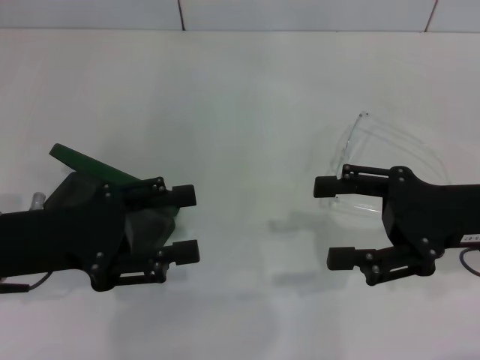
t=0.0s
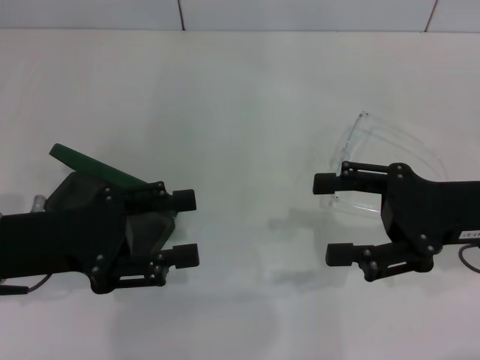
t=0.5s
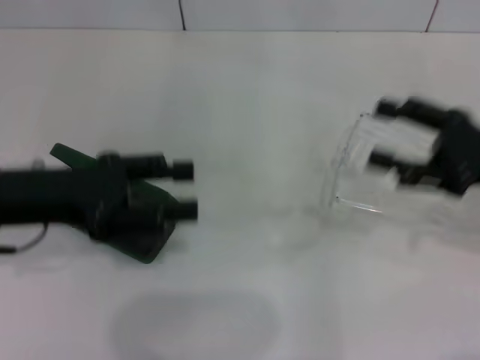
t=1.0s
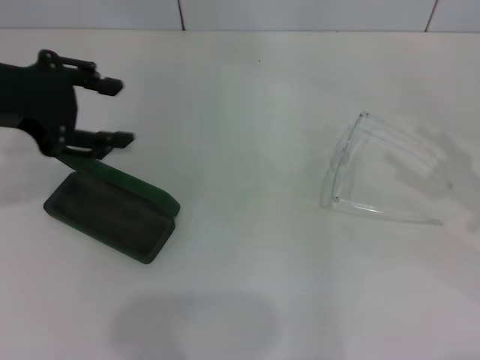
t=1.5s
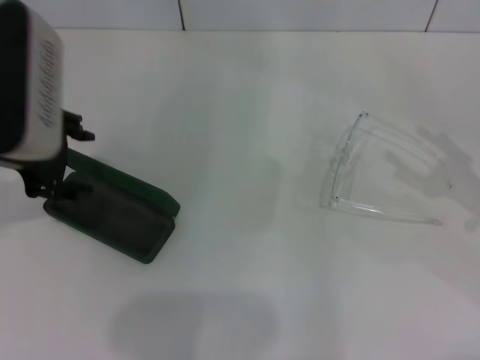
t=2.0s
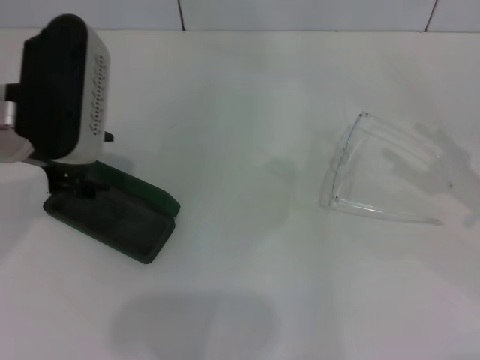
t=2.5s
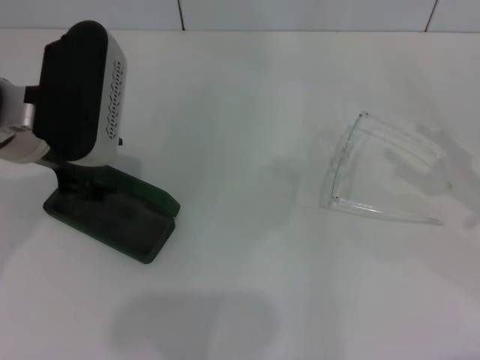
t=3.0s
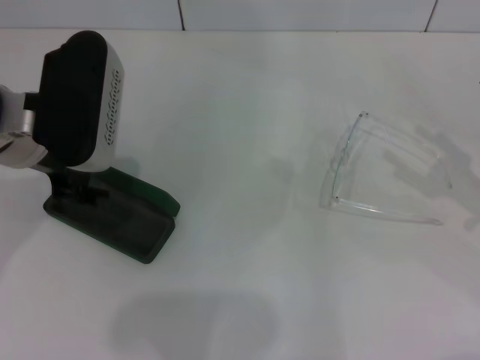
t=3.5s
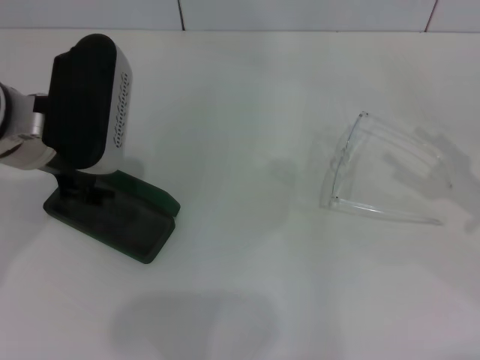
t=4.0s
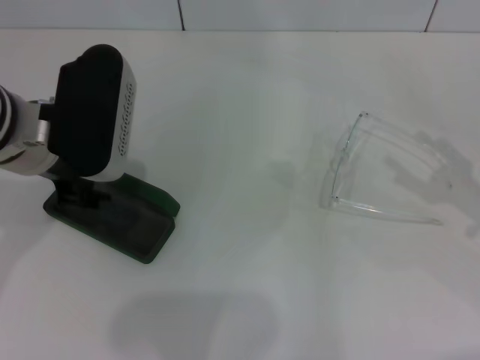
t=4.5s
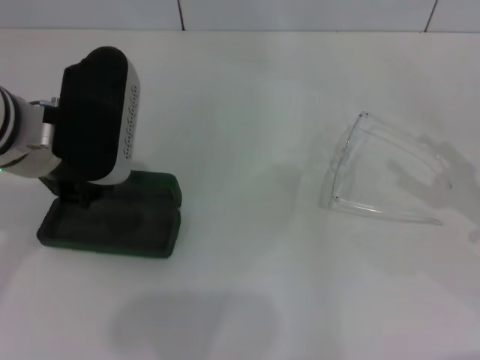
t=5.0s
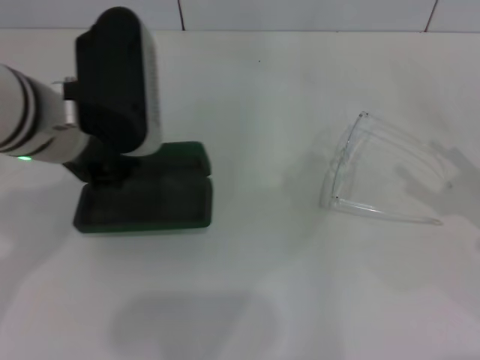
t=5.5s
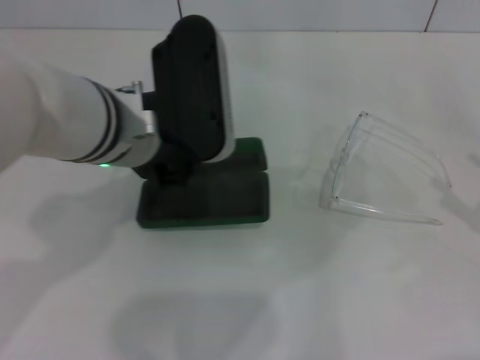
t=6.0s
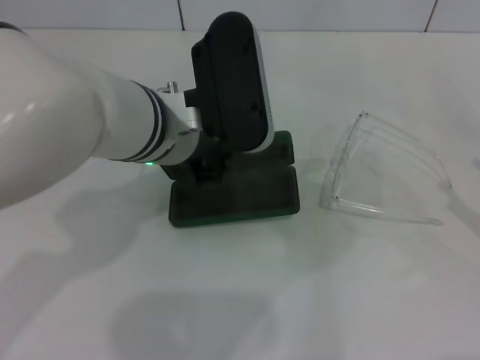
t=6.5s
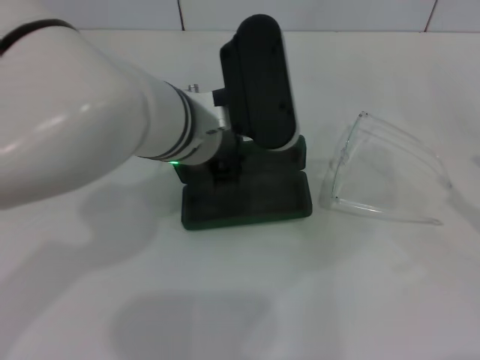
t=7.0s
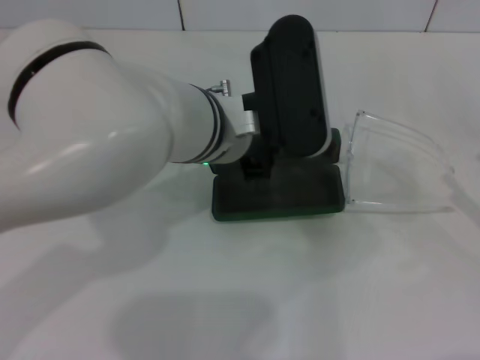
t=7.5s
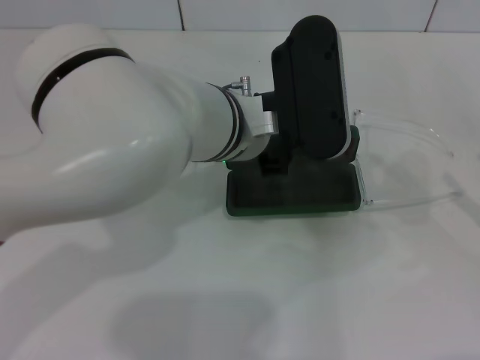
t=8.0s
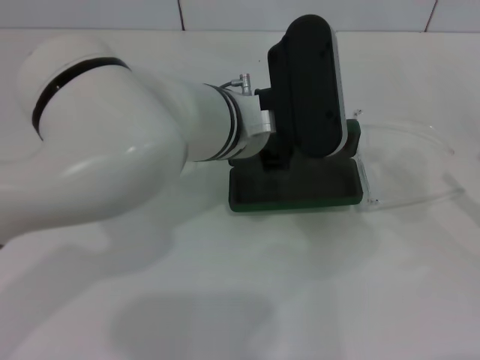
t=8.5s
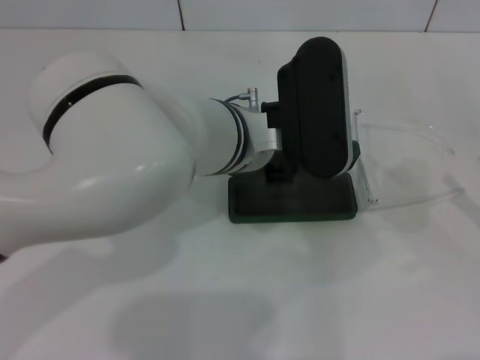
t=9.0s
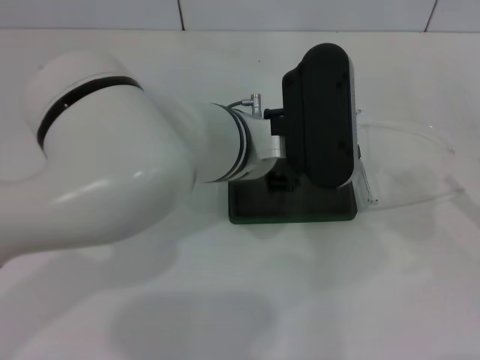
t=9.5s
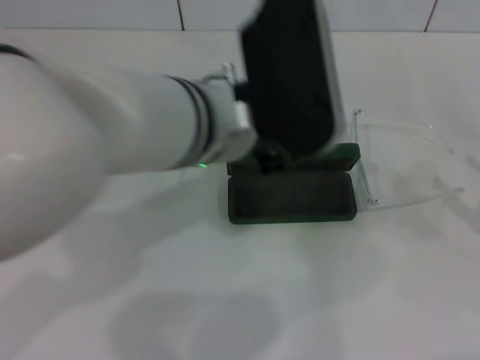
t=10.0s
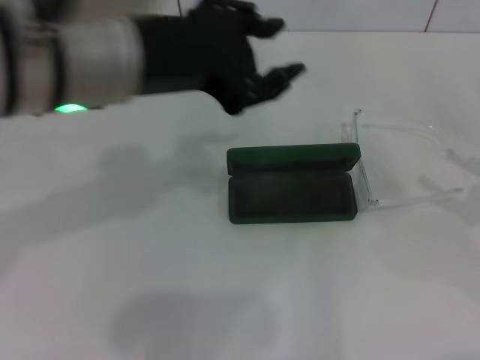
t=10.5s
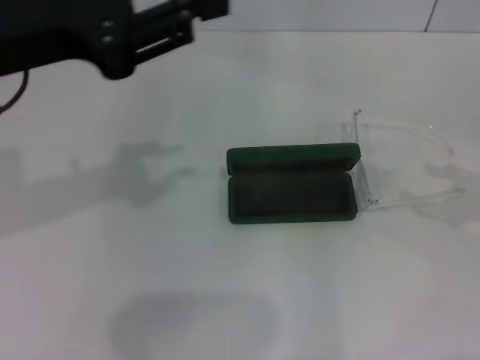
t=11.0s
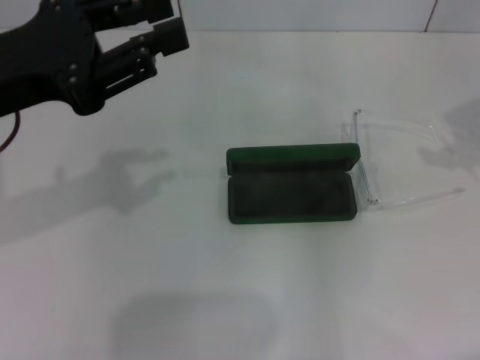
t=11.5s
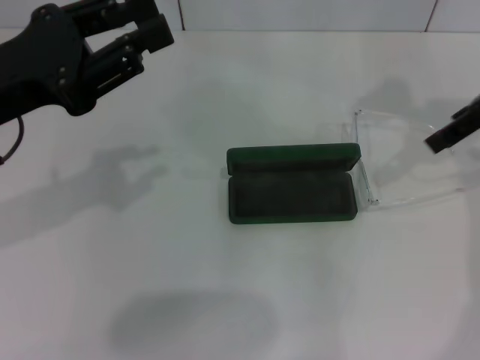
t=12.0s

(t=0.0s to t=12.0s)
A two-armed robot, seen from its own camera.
Step, t=0.0s - t=4.5s: Grab the glasses case with your left hand.
Step, t=5.0s - t=9.0s: Place the glasses case in the center of the table with your left hand.
t=0.0s - t=2.0s: The left gripper heads upward and forward, covering about 10 cm. The right gripper travels to the right by roughly 10 cm.
t=2.0s - t=4.0s: The grippers make only small movements.
t=4.0s - t=6.0s: The right gripper goes some 5 cm backward; the left gripper travels to the right by about 10 cm, and closes its fingers.
t=6.0s - t=8.0s: The left gripper shifts about 10 cm to the right.
t=8.0s - t=10.0s: The left gripper moves some 5 cm, and opens its fingers.
t=10.0s - t=12.0s: The left gripper shifts roughly 20 cm to the left, while the right gripper moves upward, forward and to the left, approximately 30 cm.

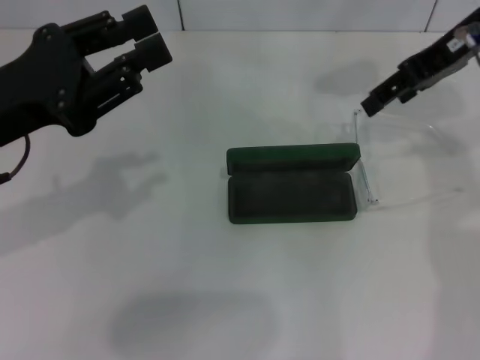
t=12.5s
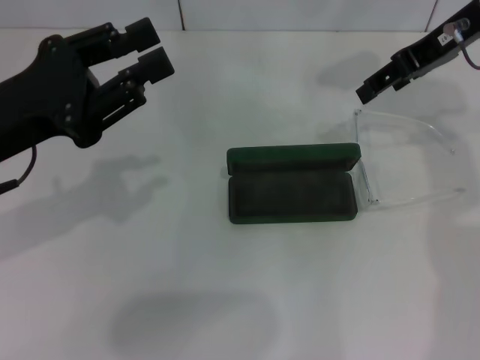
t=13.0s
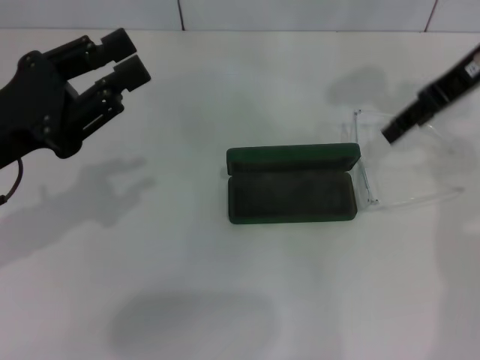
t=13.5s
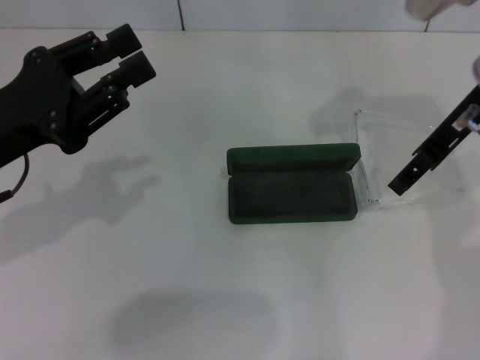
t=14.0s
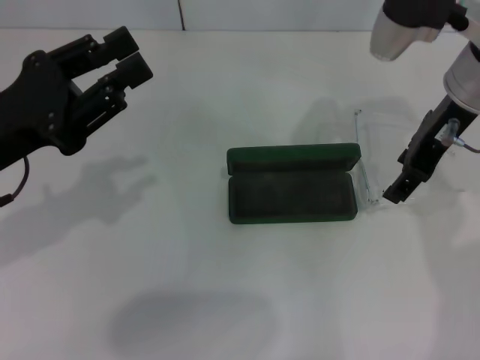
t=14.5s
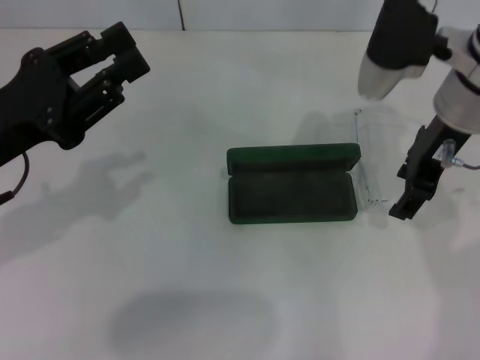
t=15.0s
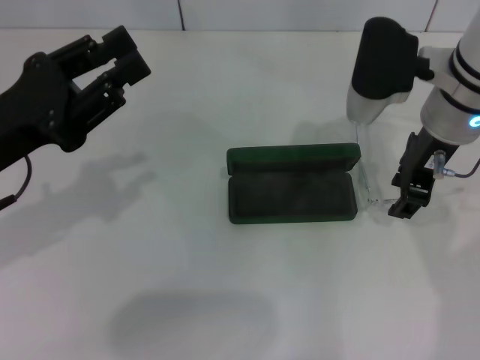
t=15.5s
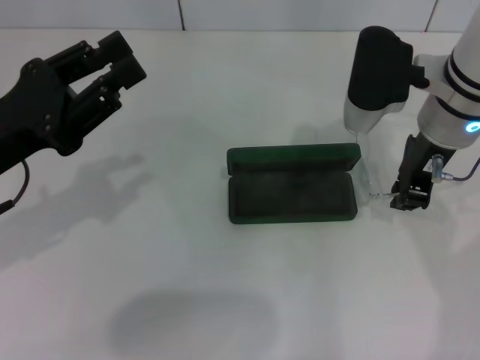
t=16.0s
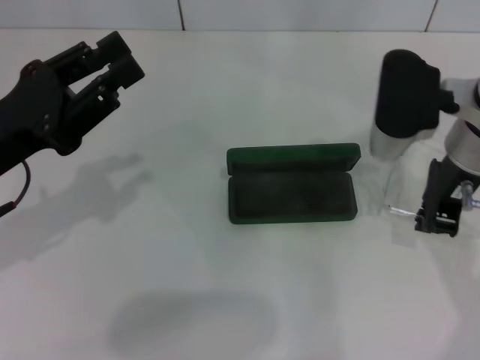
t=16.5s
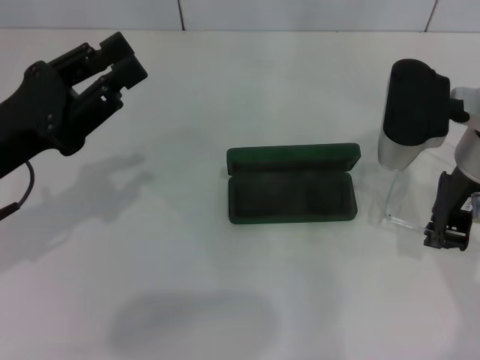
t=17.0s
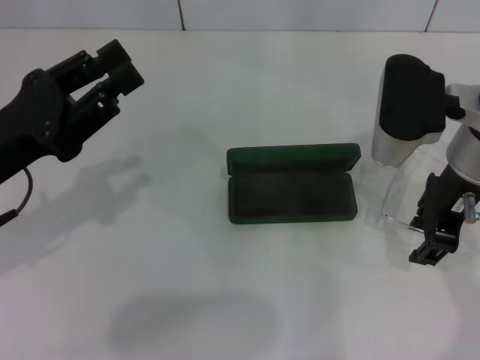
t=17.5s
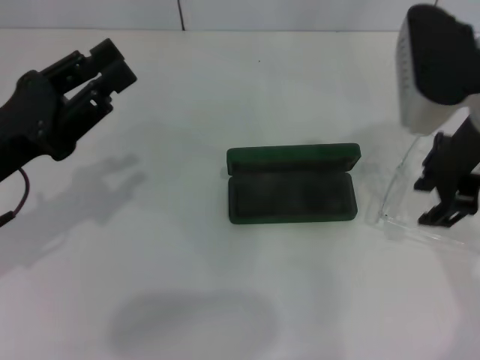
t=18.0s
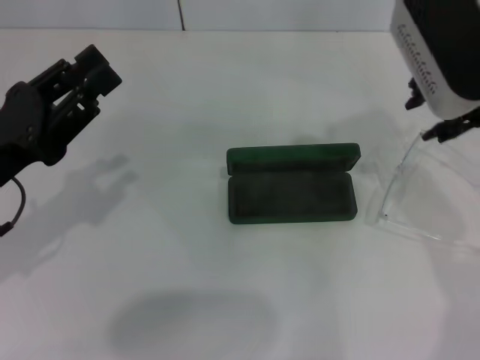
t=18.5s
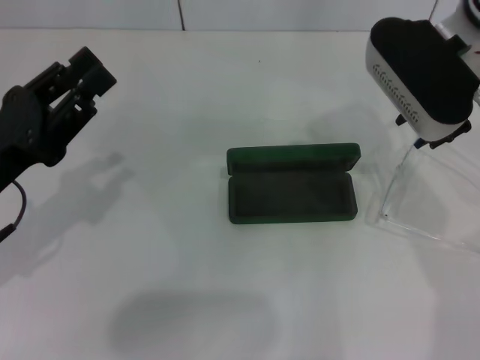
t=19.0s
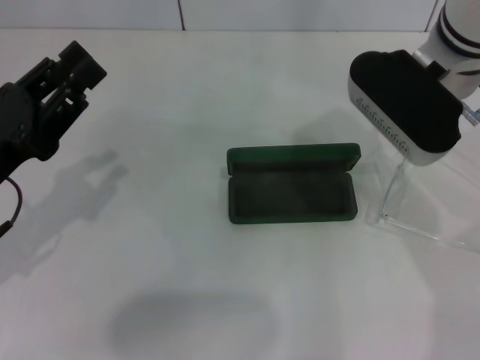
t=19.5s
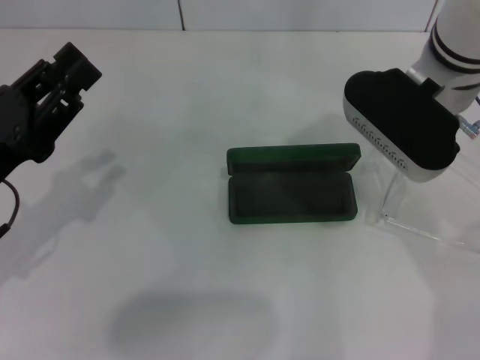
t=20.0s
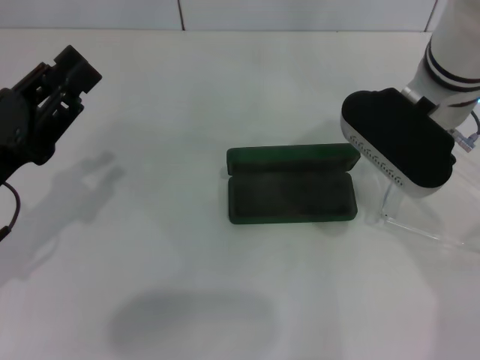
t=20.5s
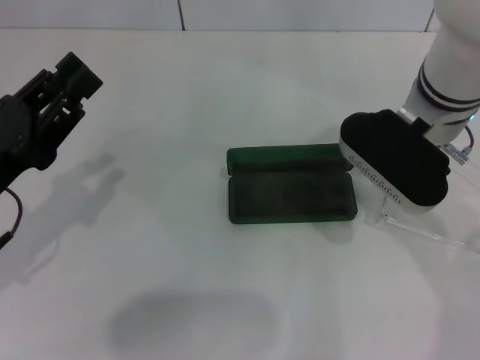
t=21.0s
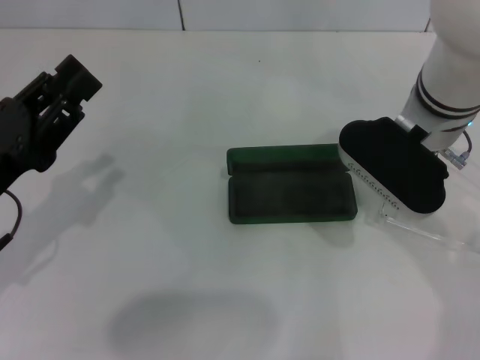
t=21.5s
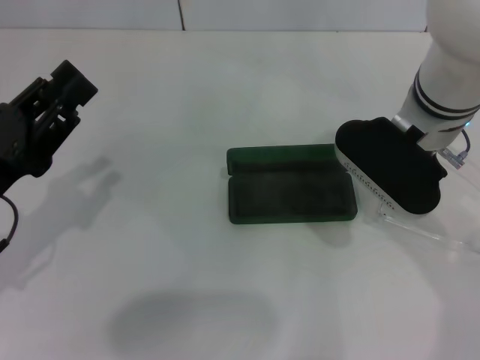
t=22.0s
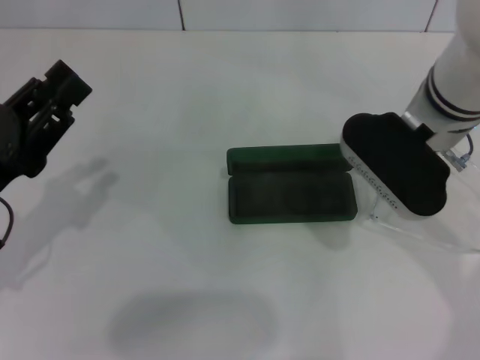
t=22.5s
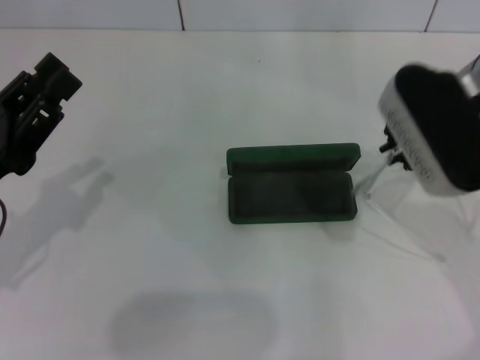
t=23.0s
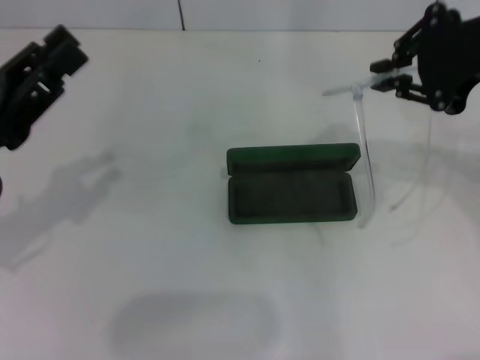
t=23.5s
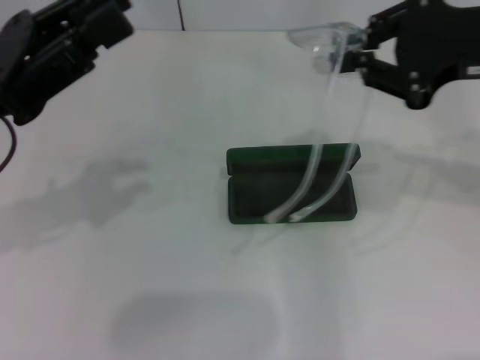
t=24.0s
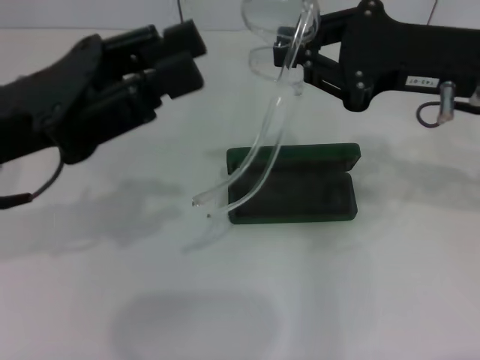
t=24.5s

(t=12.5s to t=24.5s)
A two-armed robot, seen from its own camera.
Step, t=12.5s - t=22.0s: Grab the eyeglass frame with your right hand.
t=12.5s - t=14.5s: The right gripper travels downward by about 5 cm.
t=14.5s - t=16.5s: The right gripper changes place by roughly 5 cm, and closes up.
t=16.5s - t=18.5s: The right gripper heads upward, covering roughly 10 cm, and opens its fingers.
t=18.5s - t=20.5s: The right gripper travels downward by roughly 5 cm.
t=20.5s - t=22.5s: The right gripper closes its fingers.
t=22.5s - t=24.5s: The left gripper shifts some 10 cm upward and to the right. Meanwhile the right gripper travels to the right by about 5 cm, and reaches roughly 10 cm upward, then returns.

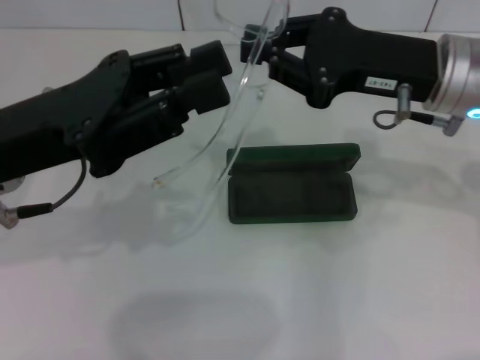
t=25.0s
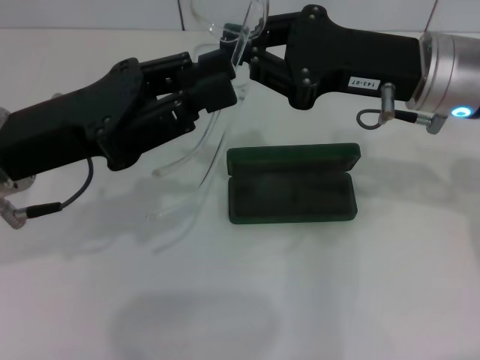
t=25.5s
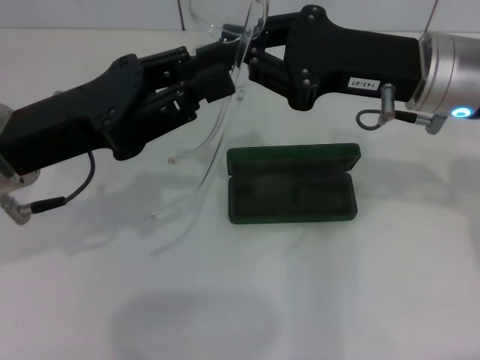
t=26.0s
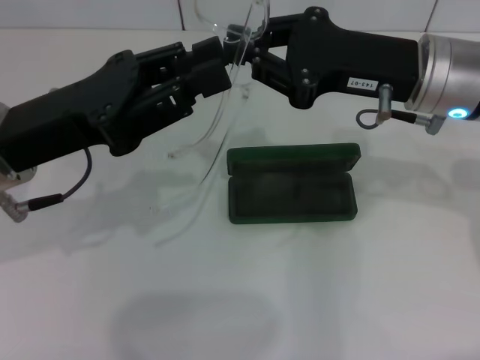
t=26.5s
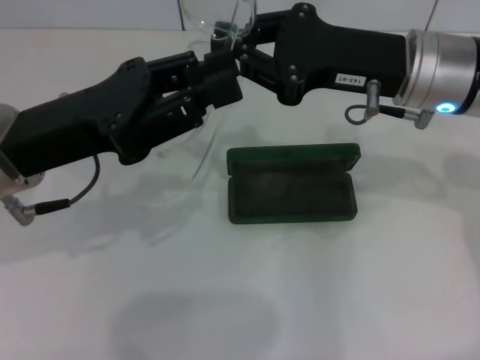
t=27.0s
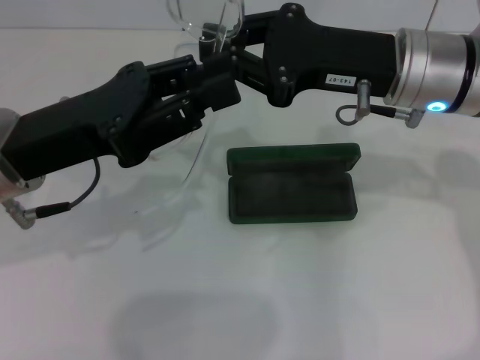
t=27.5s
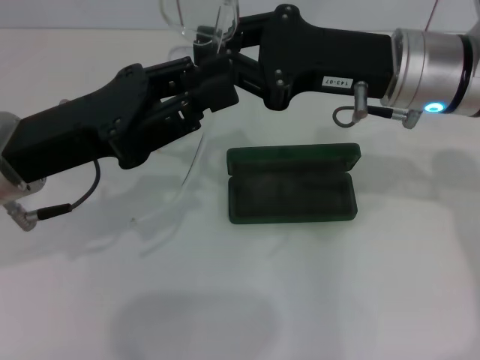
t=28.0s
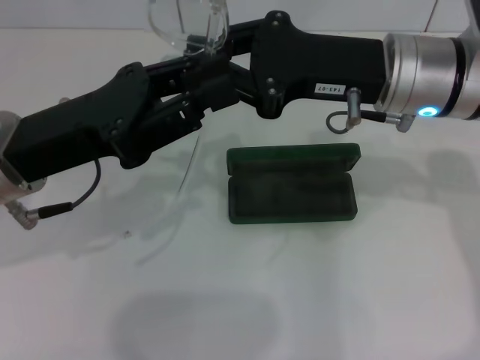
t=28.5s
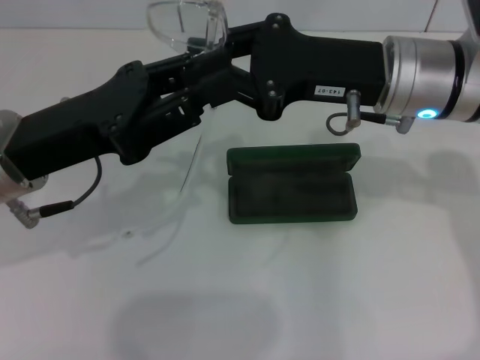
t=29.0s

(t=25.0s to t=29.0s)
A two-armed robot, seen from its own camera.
t=25.0s - t=29.0s: The grippers make only small movements.
